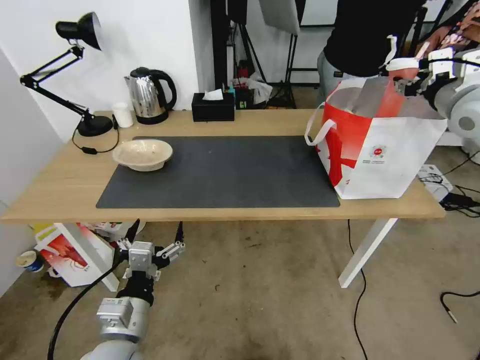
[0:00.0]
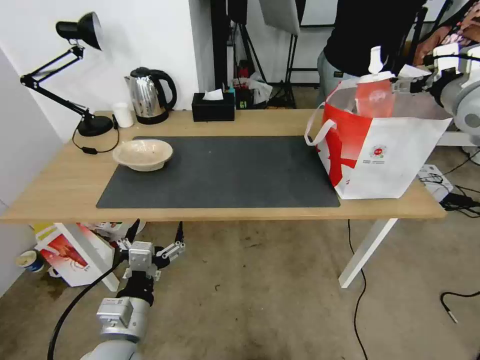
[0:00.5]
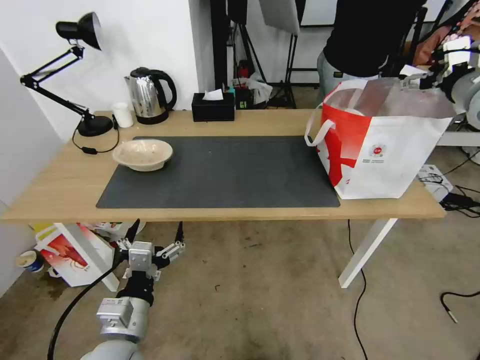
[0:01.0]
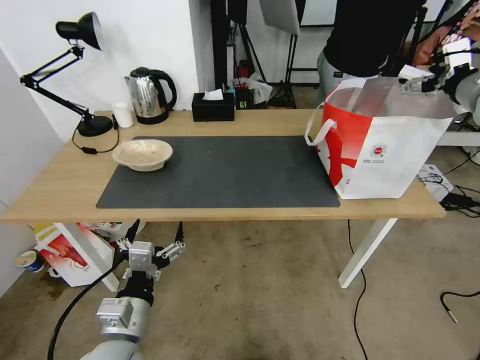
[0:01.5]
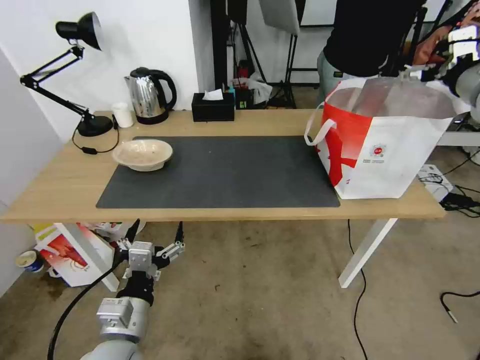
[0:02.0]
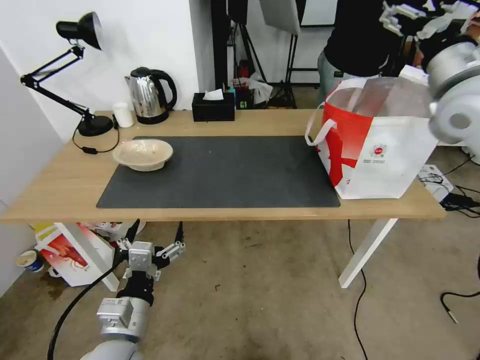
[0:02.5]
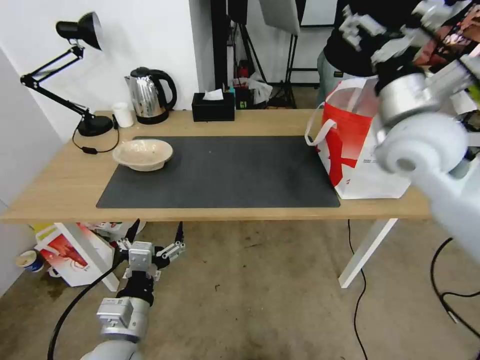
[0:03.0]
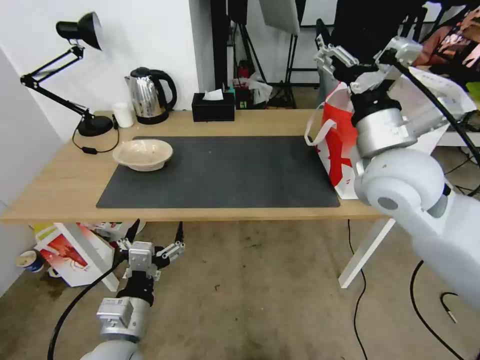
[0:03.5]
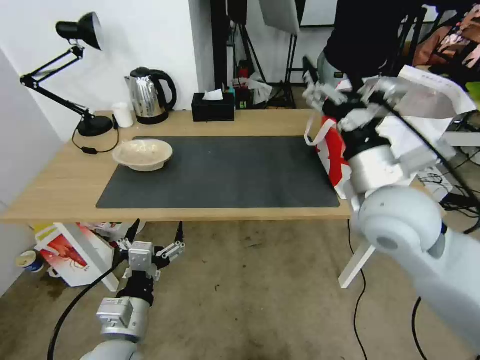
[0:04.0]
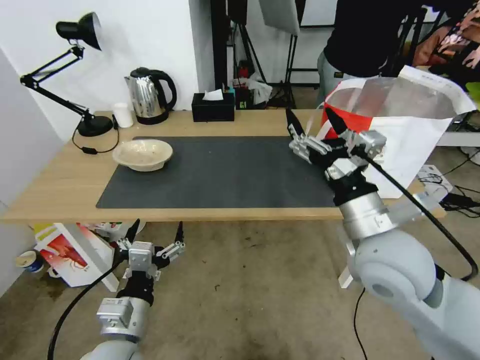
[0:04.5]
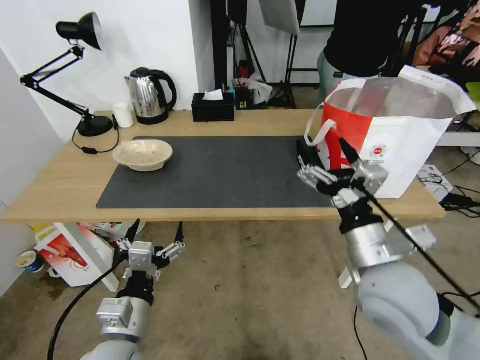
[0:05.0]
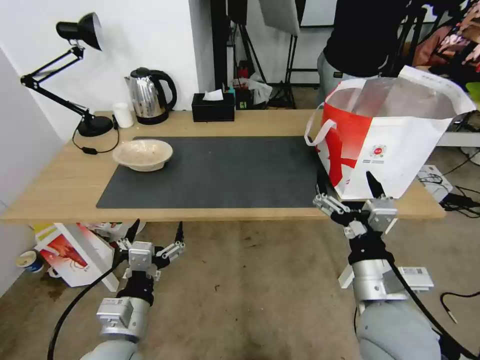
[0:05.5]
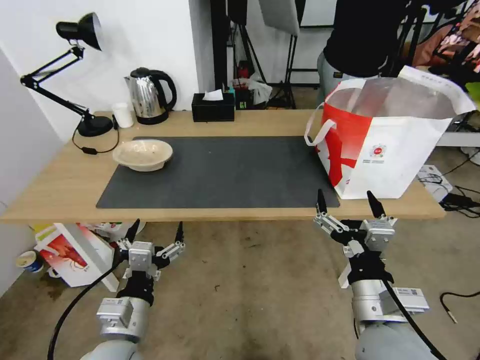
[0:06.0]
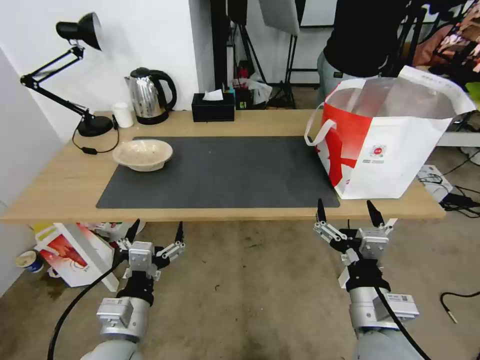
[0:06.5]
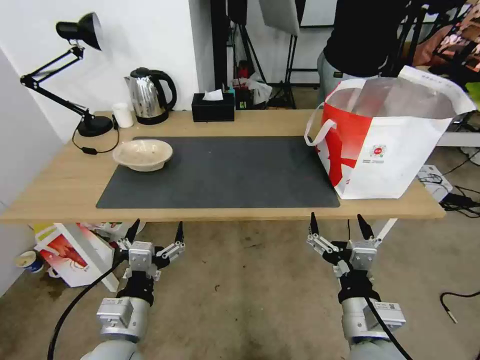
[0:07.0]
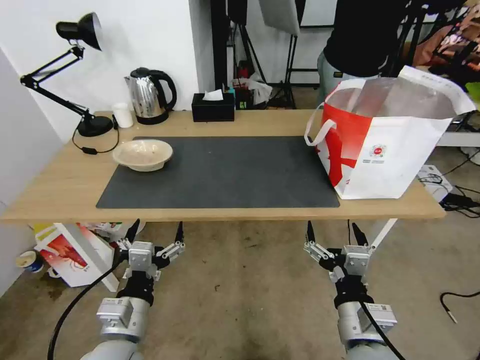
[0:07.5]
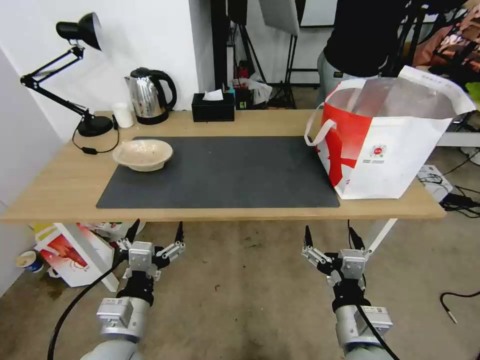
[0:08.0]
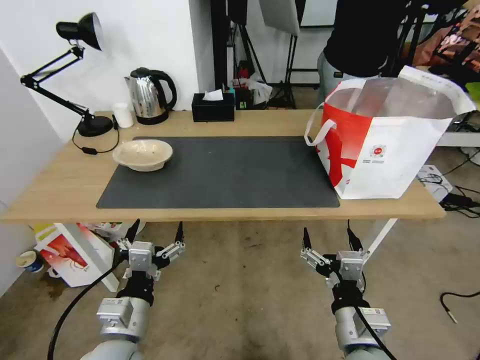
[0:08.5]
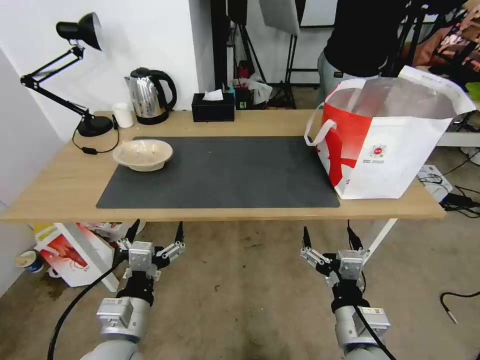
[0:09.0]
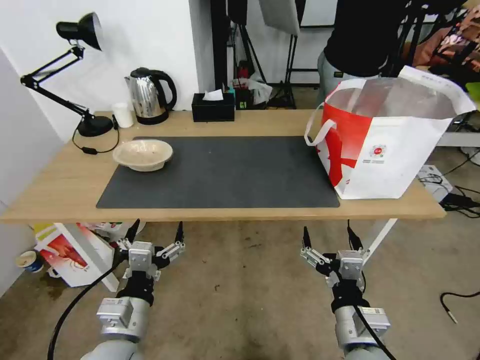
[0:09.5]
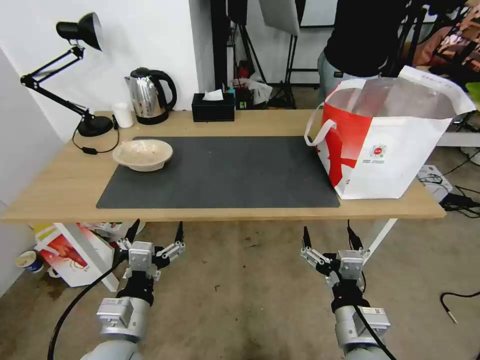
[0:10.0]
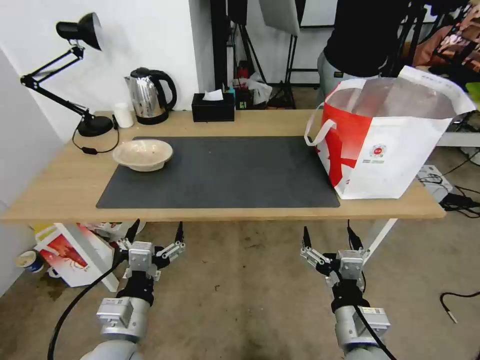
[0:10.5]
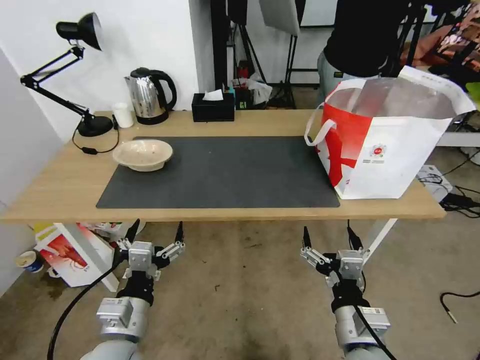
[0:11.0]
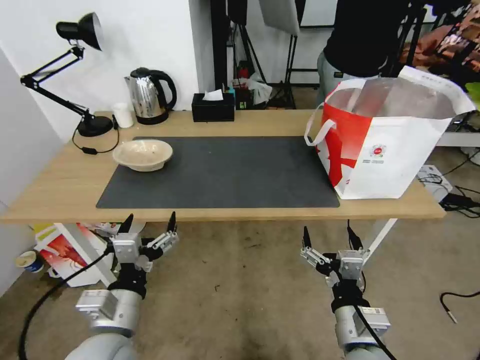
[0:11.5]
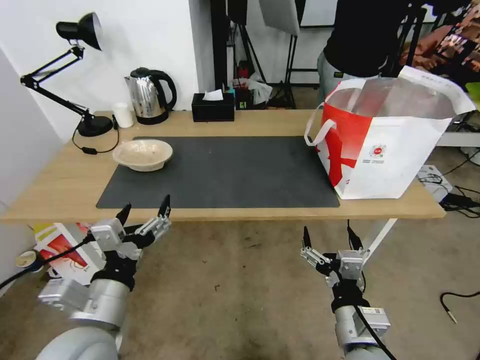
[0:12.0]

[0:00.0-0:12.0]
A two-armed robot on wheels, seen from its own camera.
Task of the whole recording: Pick up the trash from the table and place it into the takeout bag.
0:00.0 to 0:02.0: The right gripper opens its fingers.
0:02.0 to 0:04.0: The right gripper shifts roughly 25 cm to the left, backward and downward.
0:04.0 to 0:06.0: The right gripper is displaced backward and downward by about 20 cm.
0:06.0 to 0:08.0: The right gripper goes approximately 5 cm downward.
0:08.0 to 0:10.0: Both grippers stay put.
0:10.0 to 0:12.0: The left gripper goes roughly 5 cm upward.

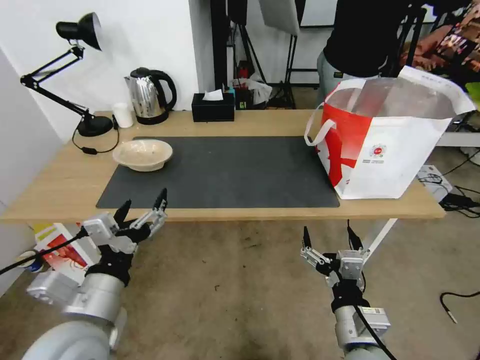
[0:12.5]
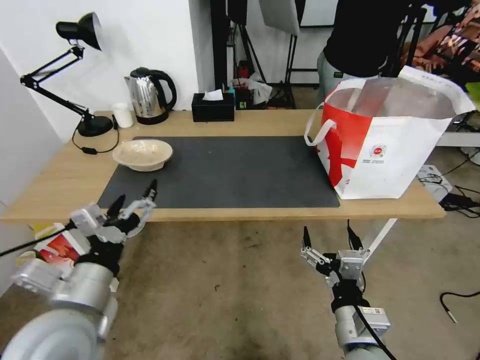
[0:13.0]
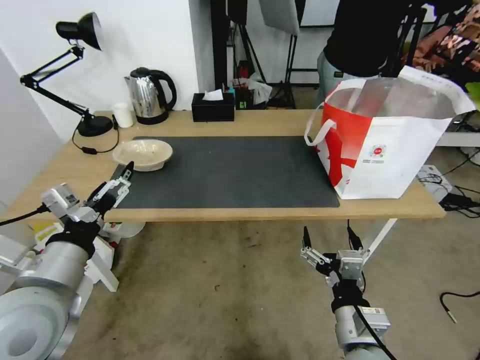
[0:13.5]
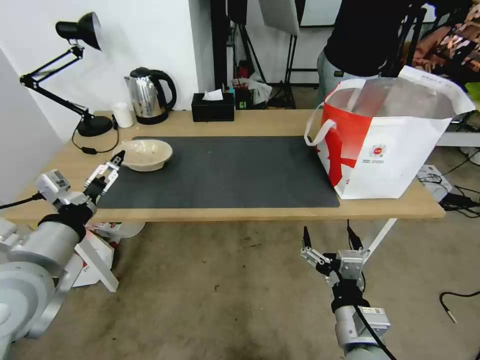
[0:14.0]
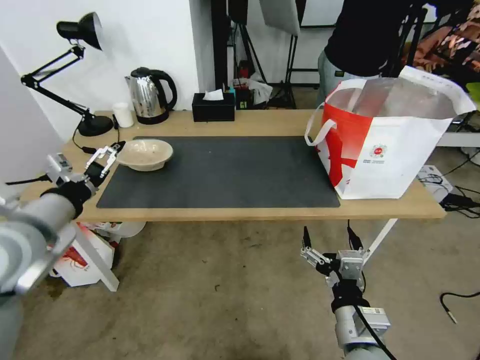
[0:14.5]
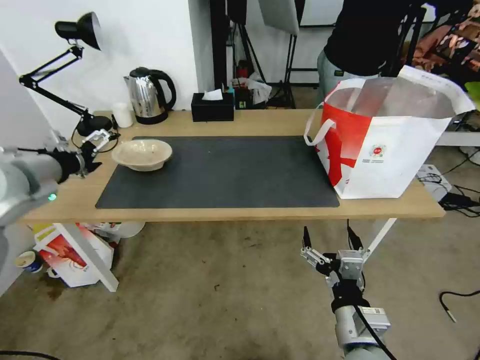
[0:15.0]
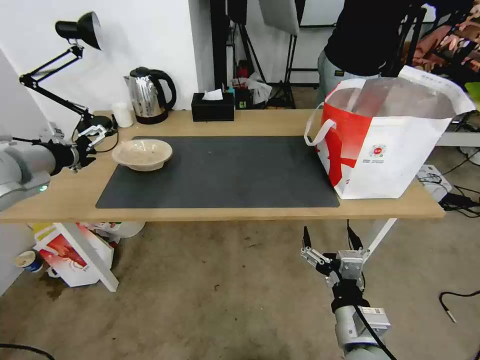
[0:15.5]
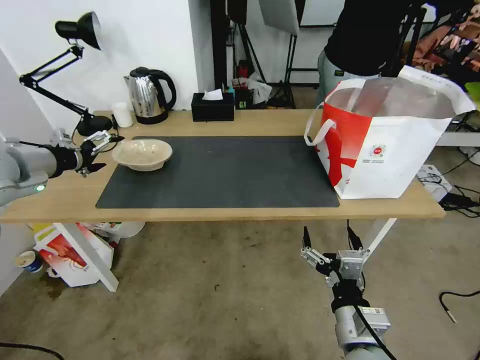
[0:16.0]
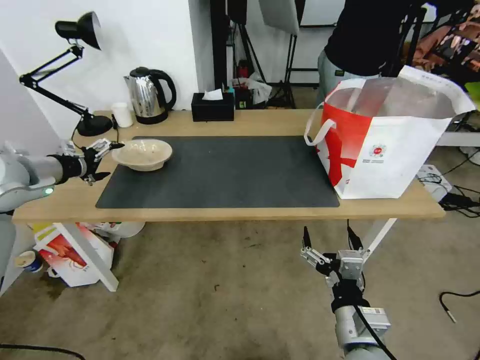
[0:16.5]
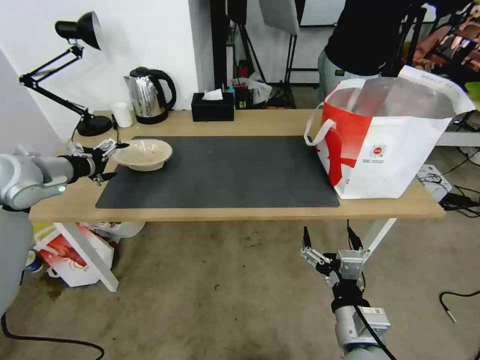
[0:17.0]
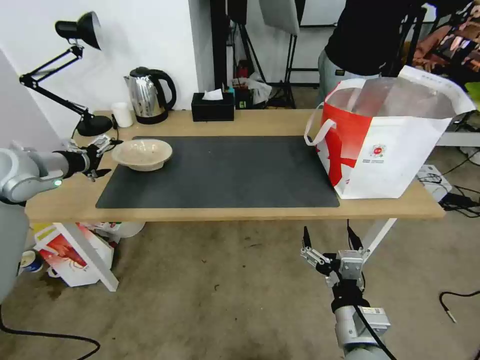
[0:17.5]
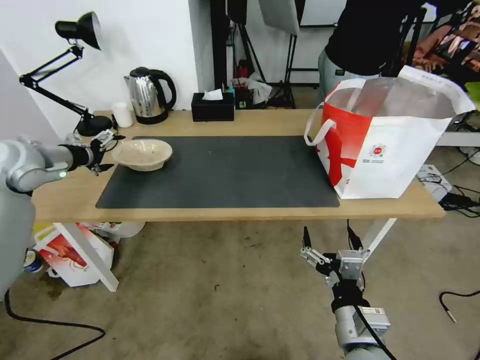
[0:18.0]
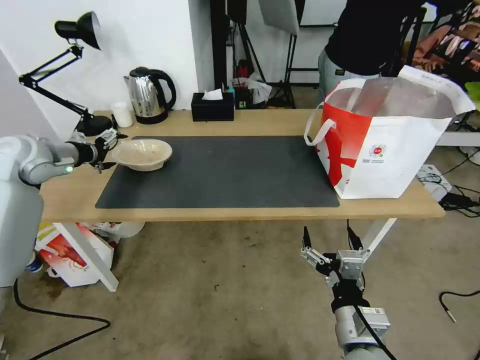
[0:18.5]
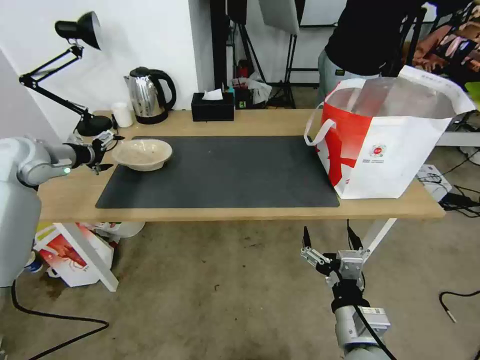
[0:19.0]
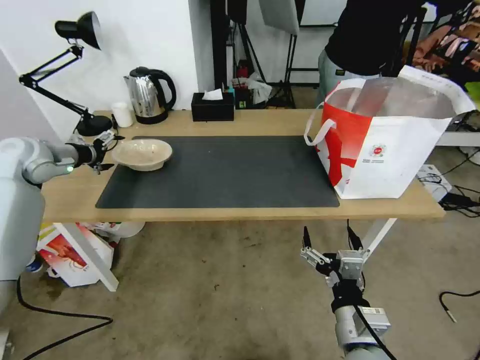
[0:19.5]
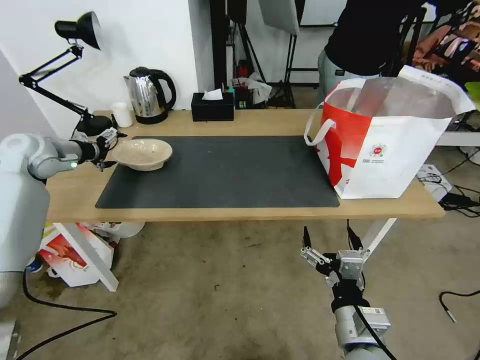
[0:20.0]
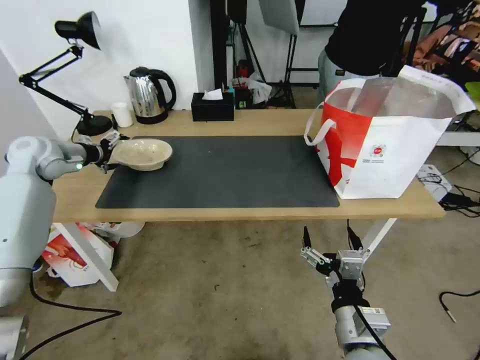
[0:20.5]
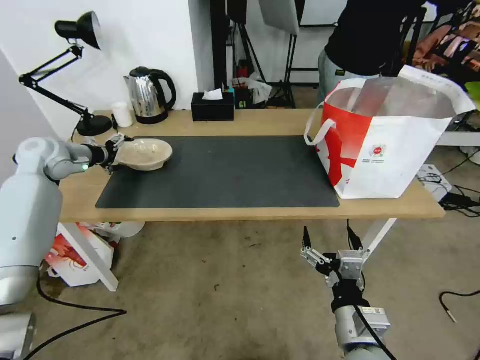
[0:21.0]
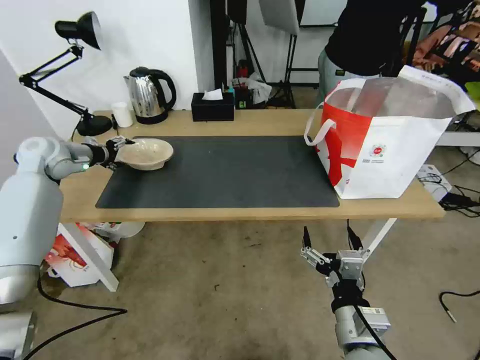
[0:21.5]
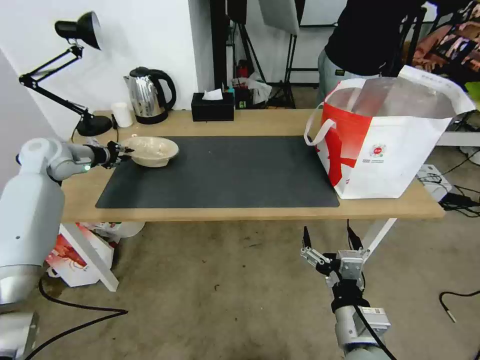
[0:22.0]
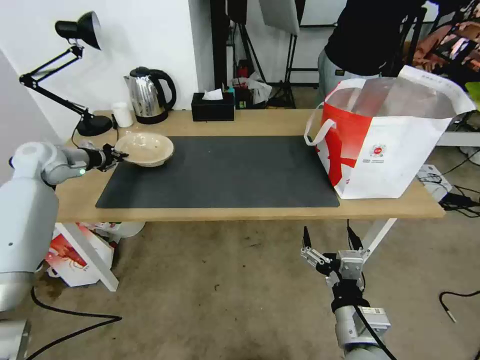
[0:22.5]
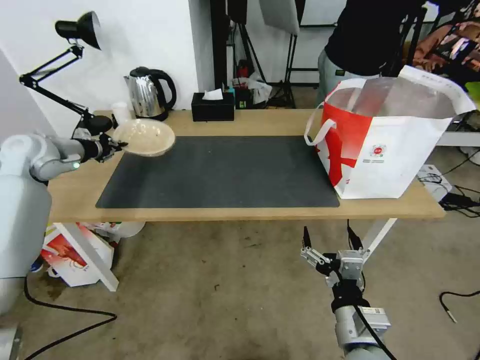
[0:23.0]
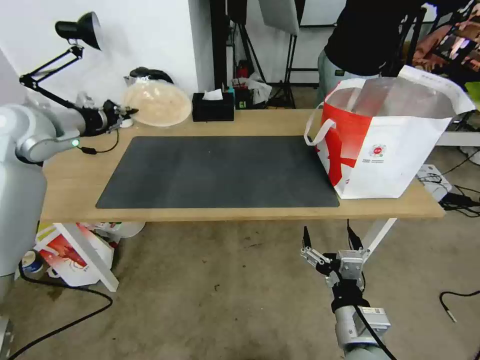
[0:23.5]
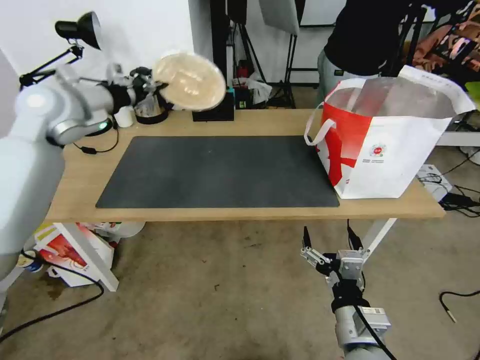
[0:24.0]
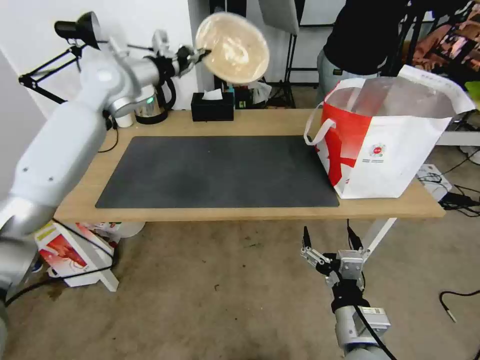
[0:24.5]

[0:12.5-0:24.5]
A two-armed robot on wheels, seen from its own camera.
Task of the whole recording: Pick up the trash from the table and place it into the takeout bag.
0:12.5 to 0:14.5: The left gripper shifts about 15 cm forward, to the left and upward.
0:14.5 to 0:16.5: The left gripper is displaced forward and to the left by some 20 cm.
0:16.5 to 0:18.5: The left gripper moves forward, some 10 cm.
0:18.5 to 0:20.5: There are only small adjustments of the grippers.
0:20.5 to 0:22.5: The left gripper closes.
0:22.5 to 0:24.5: The left gripper moves to the right and upward, about 25 cm.

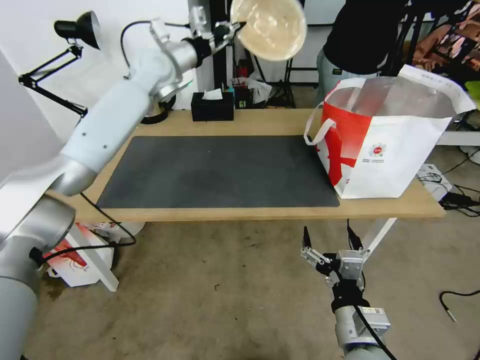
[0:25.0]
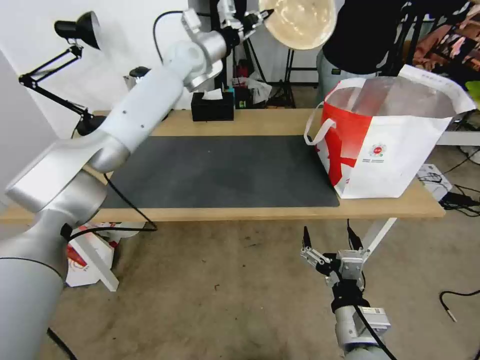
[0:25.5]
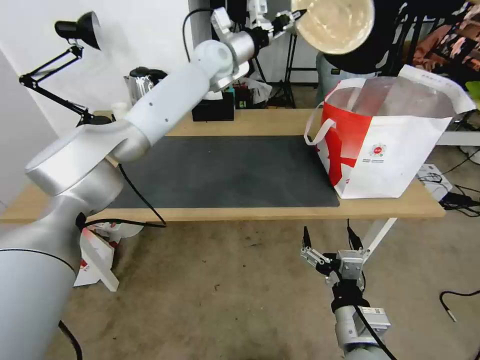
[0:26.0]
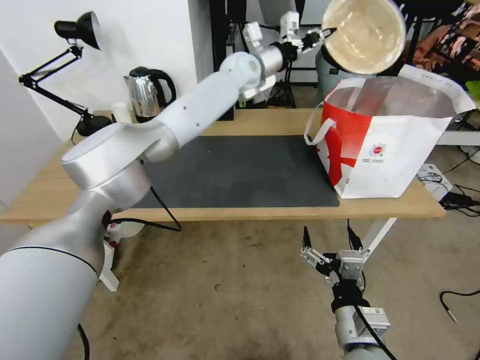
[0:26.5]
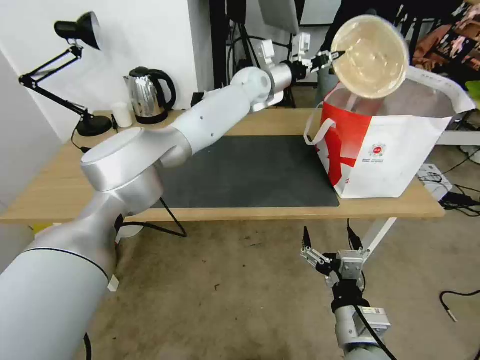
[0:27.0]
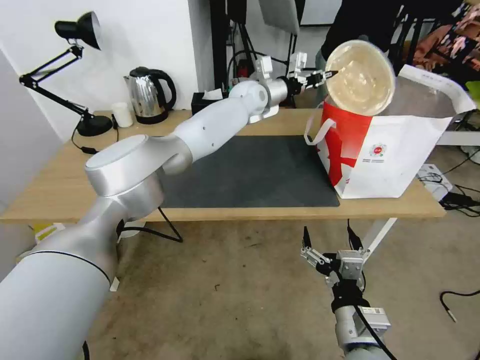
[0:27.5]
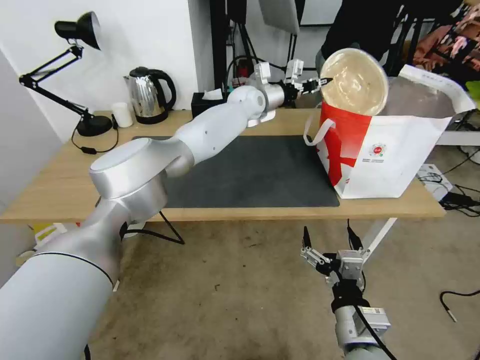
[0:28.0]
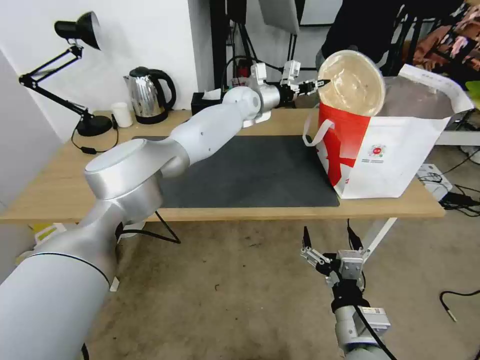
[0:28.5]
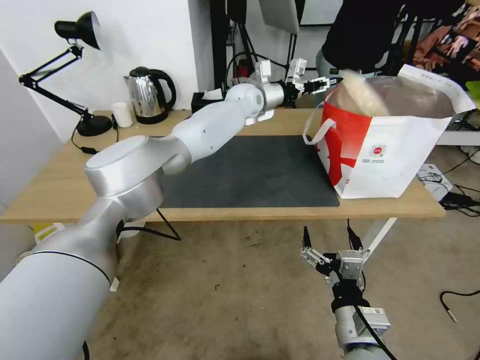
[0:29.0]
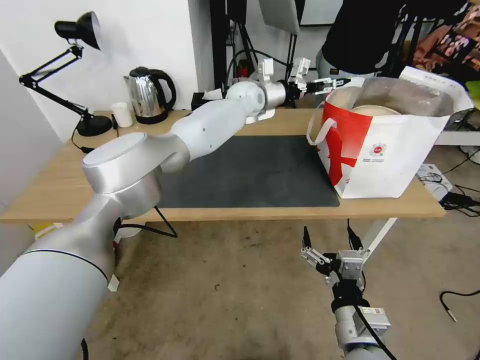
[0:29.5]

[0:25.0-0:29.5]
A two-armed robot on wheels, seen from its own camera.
Task of the whole recording: Pick up the trash from the table and place it into the takeout bag.
0:25.0 to 0:27.0: The left gripper goes approximately 20 cm to the right.
0:27.0 to 0:29.5: The left gripper opens up.
